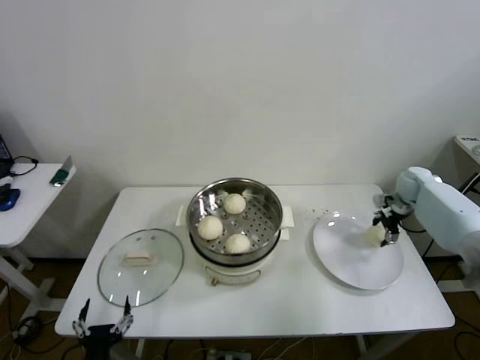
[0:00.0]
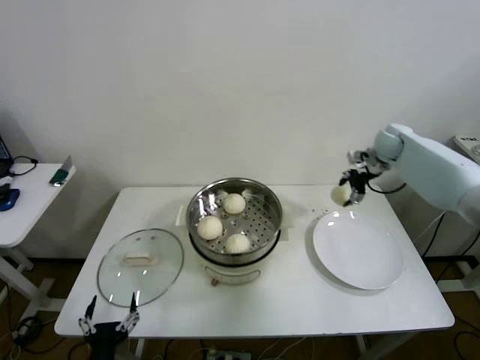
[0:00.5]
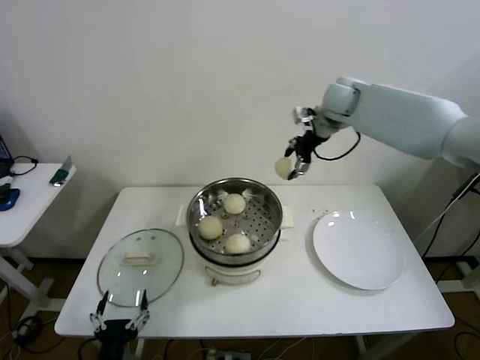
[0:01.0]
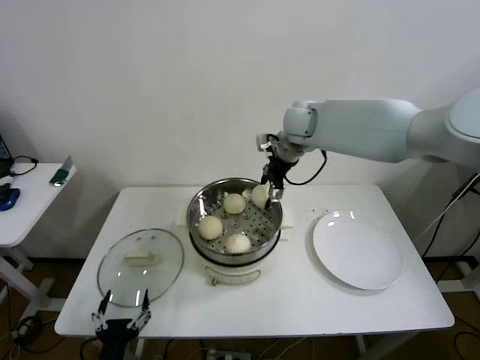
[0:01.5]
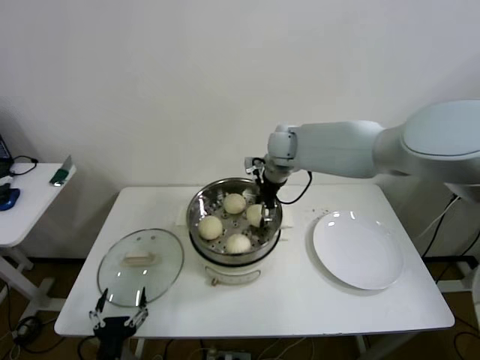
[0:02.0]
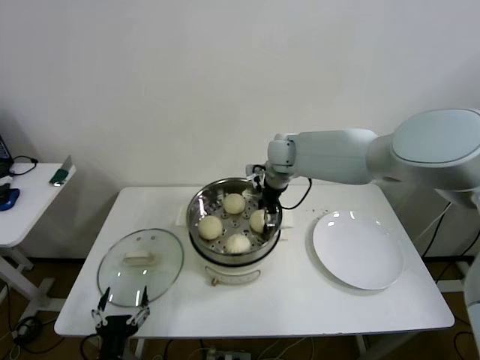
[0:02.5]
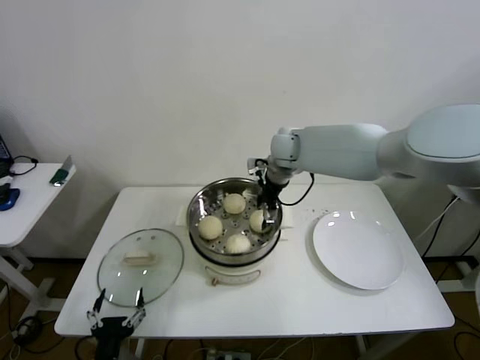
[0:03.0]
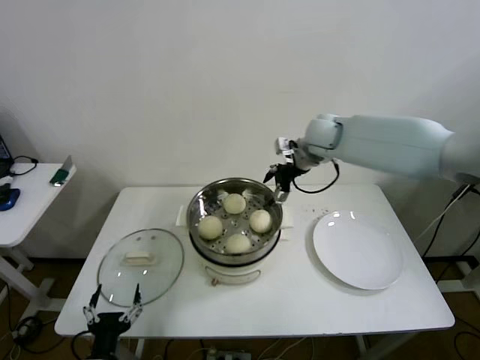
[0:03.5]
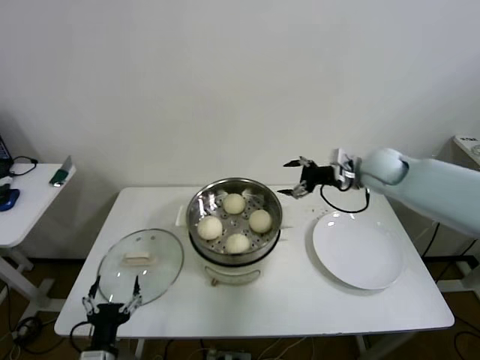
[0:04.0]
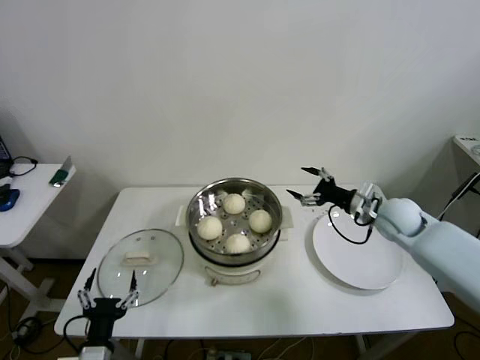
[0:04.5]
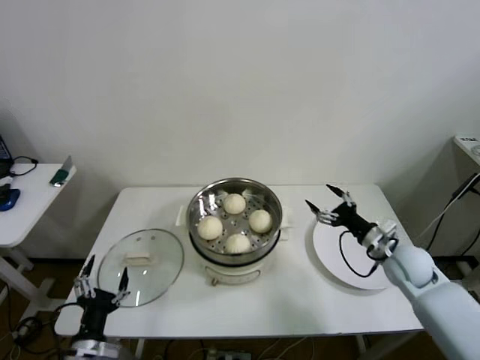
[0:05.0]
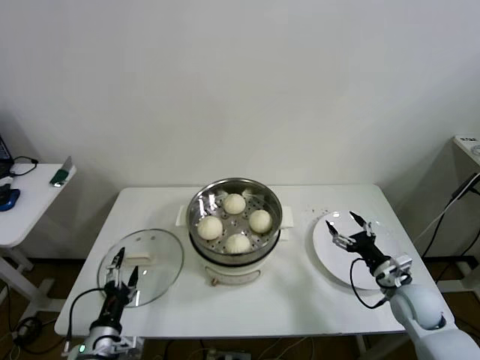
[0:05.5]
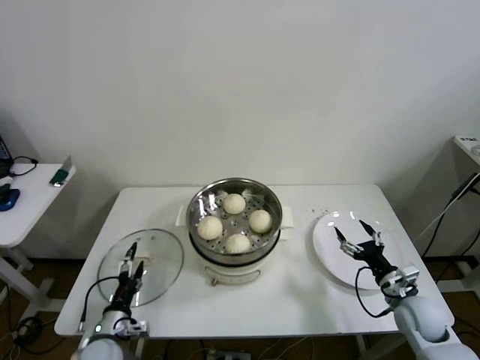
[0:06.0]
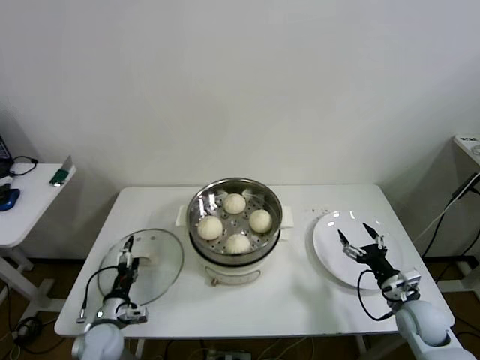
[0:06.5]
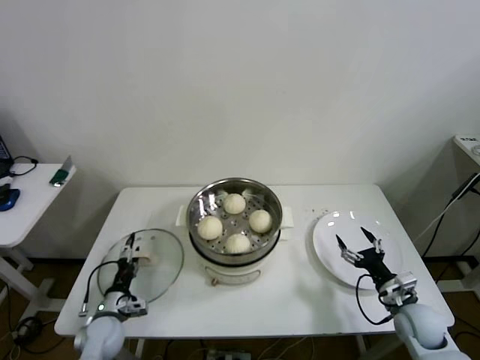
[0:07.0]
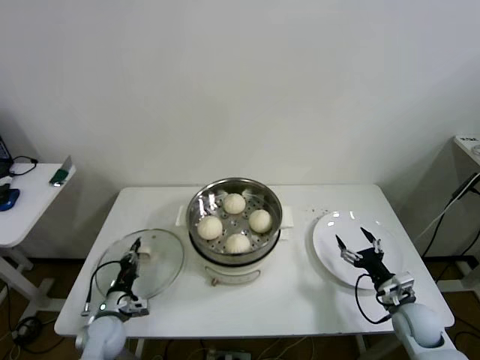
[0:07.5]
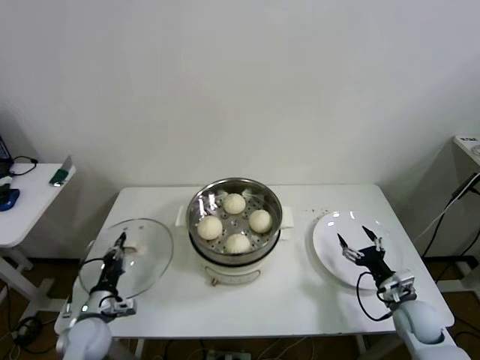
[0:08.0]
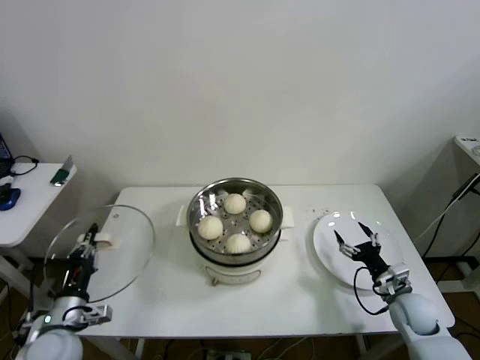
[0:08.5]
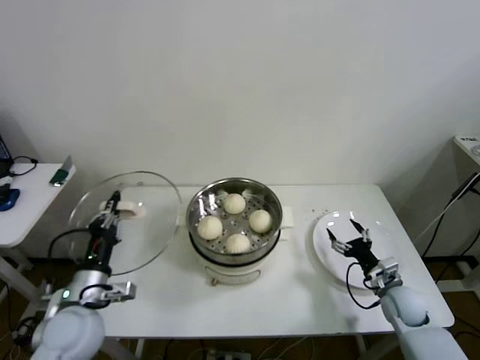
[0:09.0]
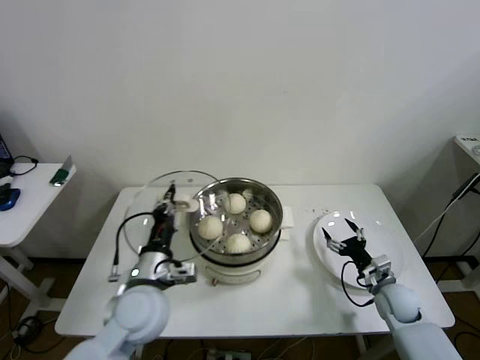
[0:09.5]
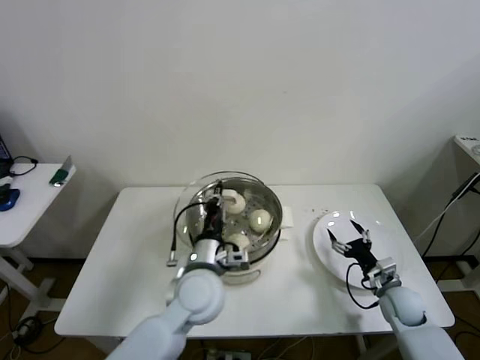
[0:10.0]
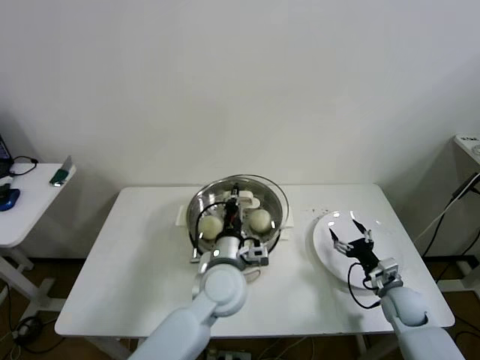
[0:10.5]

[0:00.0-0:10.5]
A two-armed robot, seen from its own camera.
Step, 0:00.0 to 0:03.0: Place the baozi on the steamer with right gripper.
Step, 0:03.5 to 0:07.5: Grasp the pot lid with left gripper.
0:00.0 to 0:02.0: The right gripper is displaced to the left by approximately 35 cm.
0:02.0 to 0:04.0: The right gripper heads to the right, covering approximately 20 cm, and opens.
0:04.0 to 0:06.5: The right gripper shifts some 35 cm downward and backward, while the left gripper goes approximately 15 cm forward, downward and to the left.
0:06.5 to 0:08.5: The left gripper moves upward, about 10 cm, and closes its fingers.
0:08.5 to 0:10.5: The left gripper goes approximately 35 cm to the right.

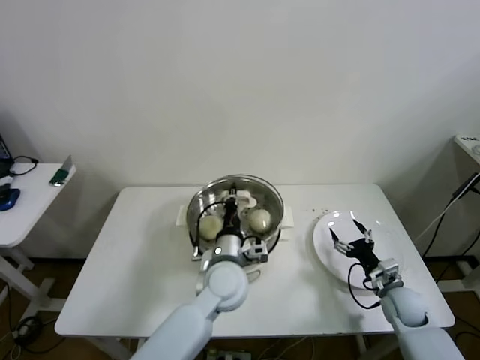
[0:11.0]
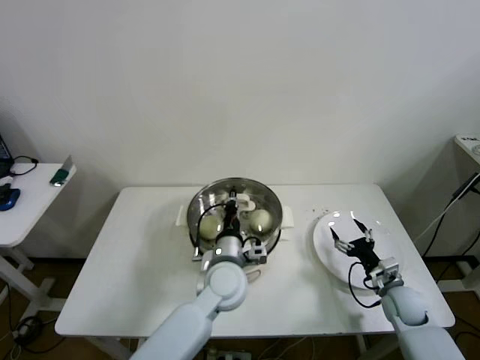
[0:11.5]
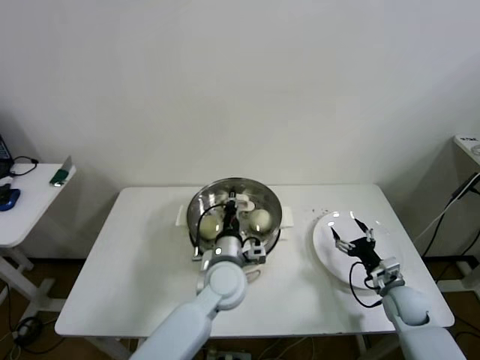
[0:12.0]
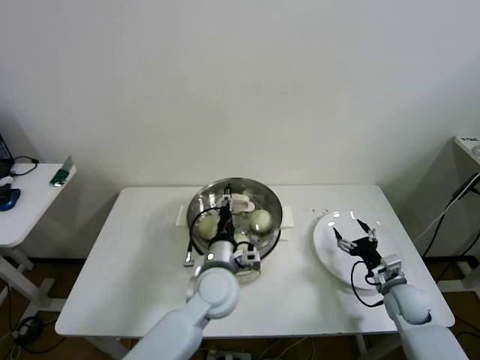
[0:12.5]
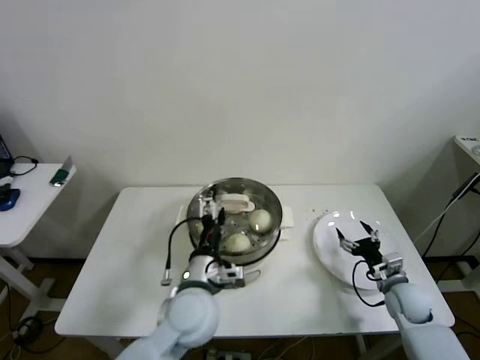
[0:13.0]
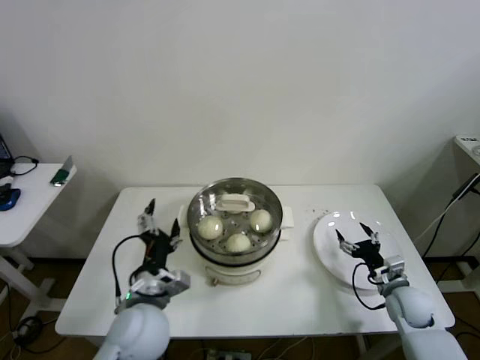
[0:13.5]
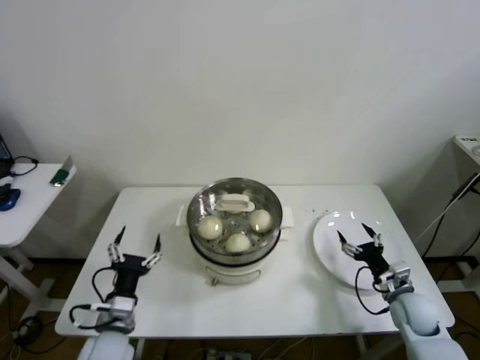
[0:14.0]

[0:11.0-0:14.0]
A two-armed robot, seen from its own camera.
Step, 0:11.0 to 0:13.0: Place the pot lid on the steamer with left gripper.
0:11.0 to 0:12.5: The left gripper opens.
0:12.5 to 0:14.0: The left gripper travels to the left and backward by some 25 cm, and opens its fingers.
